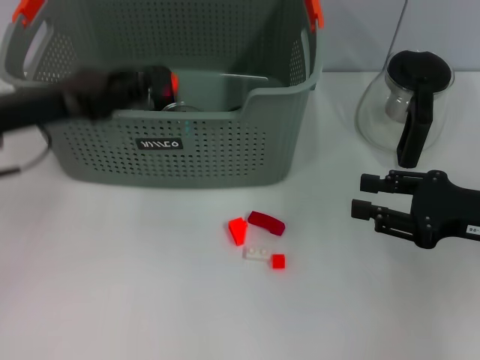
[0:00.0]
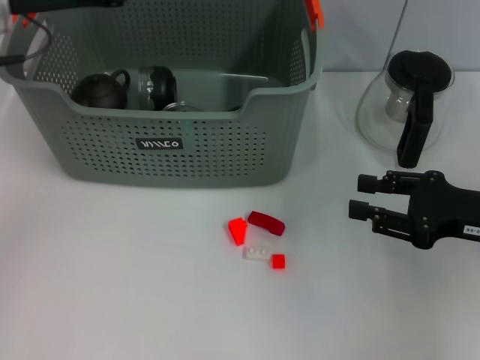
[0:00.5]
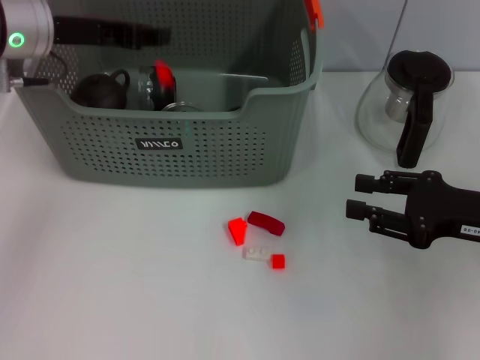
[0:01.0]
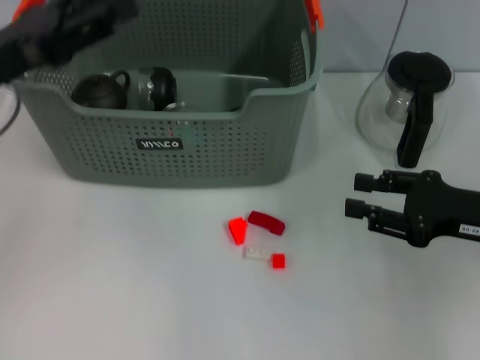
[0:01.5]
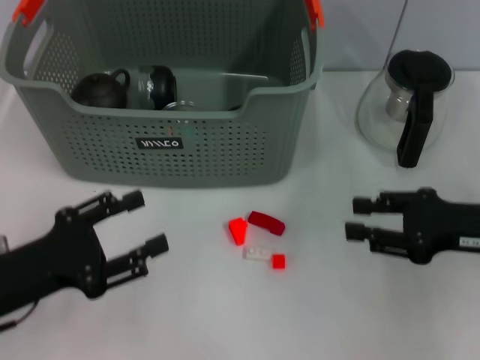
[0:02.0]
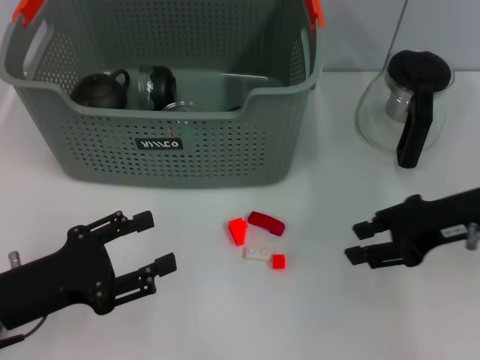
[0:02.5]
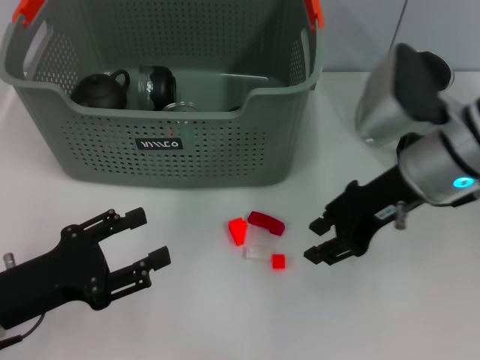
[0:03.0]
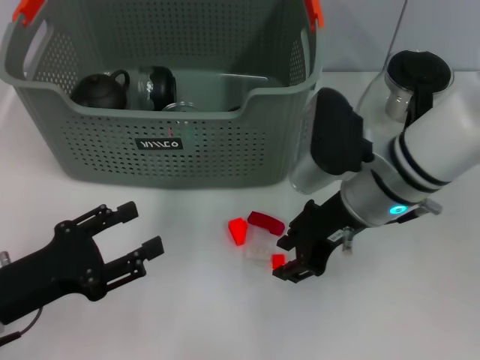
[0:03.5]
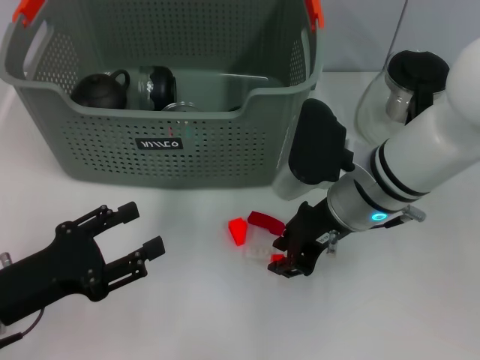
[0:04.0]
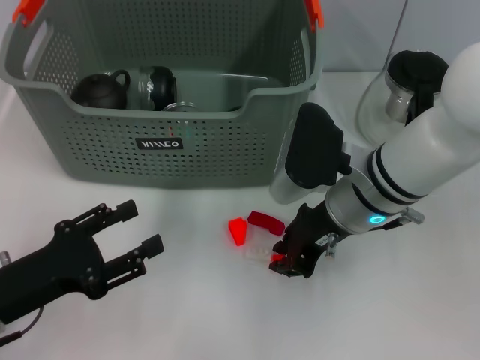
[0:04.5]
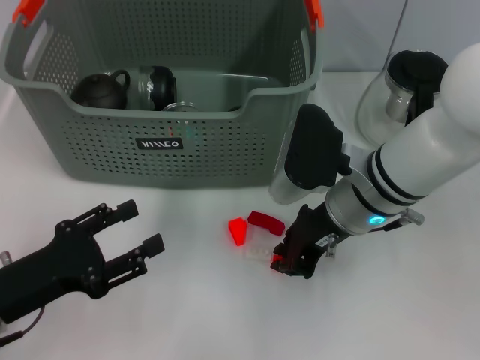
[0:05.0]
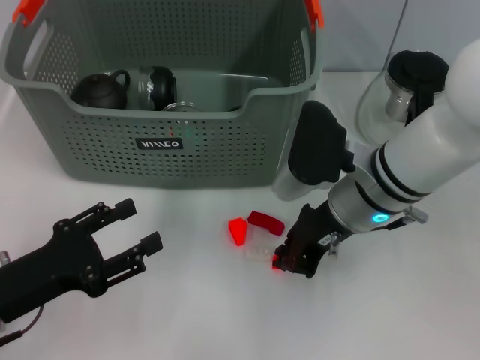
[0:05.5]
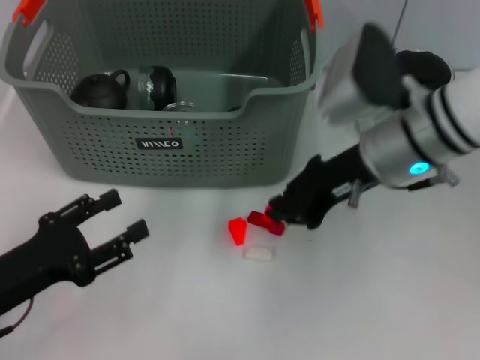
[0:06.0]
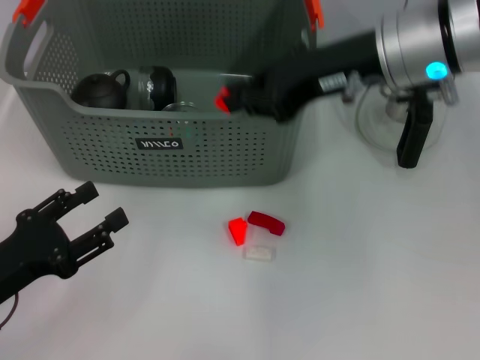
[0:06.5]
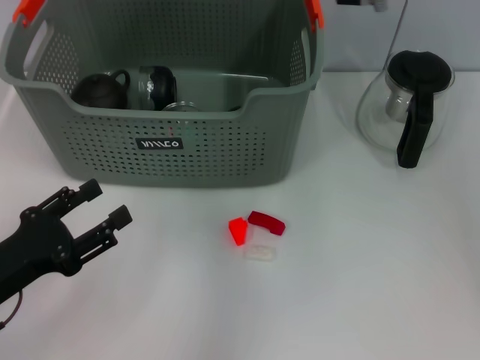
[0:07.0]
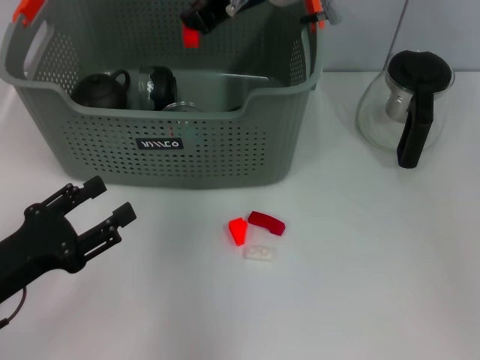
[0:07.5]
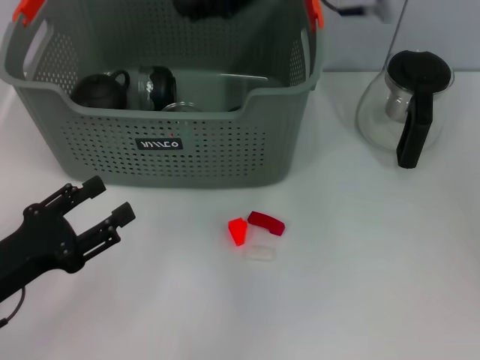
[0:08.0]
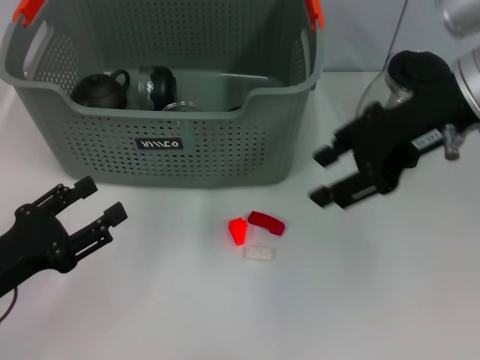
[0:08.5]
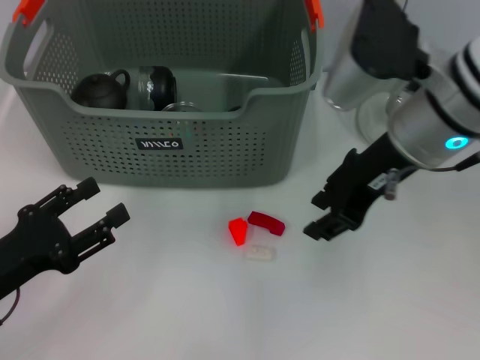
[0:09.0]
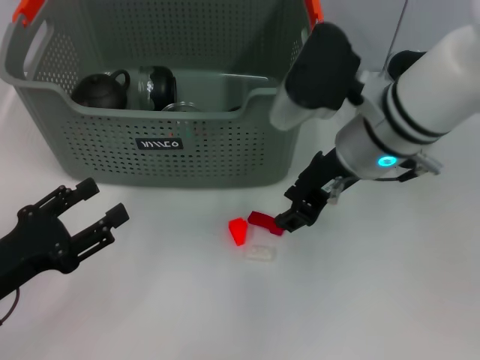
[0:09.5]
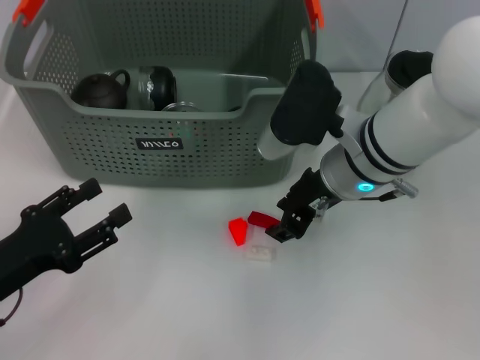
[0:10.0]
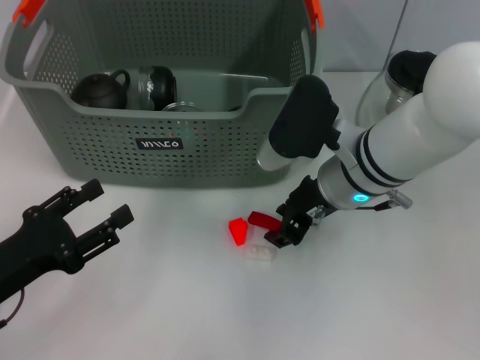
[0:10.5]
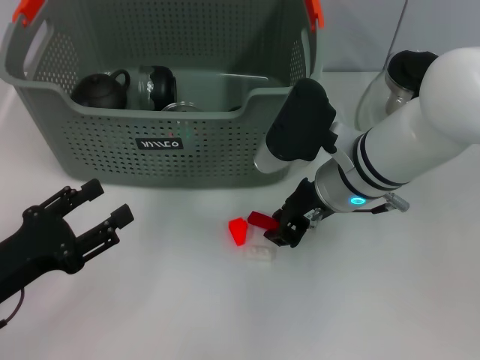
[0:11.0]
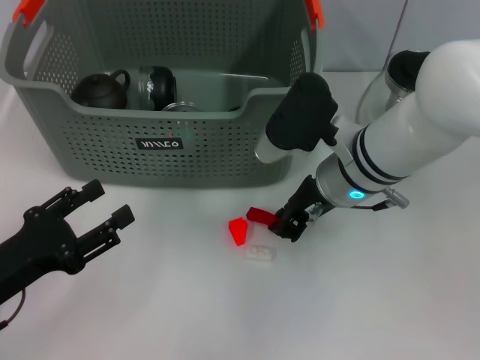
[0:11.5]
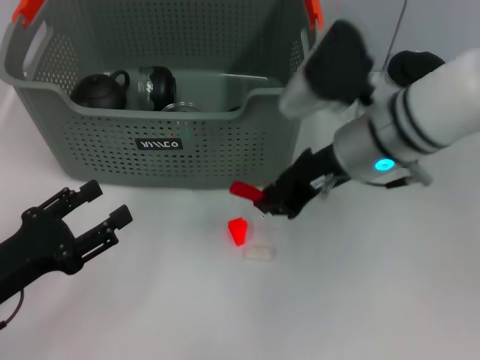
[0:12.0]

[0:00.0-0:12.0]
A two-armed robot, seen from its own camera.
Task of the whole recording: pick up the teacup on the table and place it into the storage bin, pick up the block on the table and place it into the storage bin.
Step, 0:00.0 to 0:01.0: Place the orange block in the storage box with left gripper.
Step, 0:01.5 to 0:05.0: Grasp the orange block with right gripper.
Step, 0:05.5 to 0:07.5: Place the orange block in the storage box with right gripper.
Step, 0:08.0 to 0:11.0: Grasp the red block with right gripper.
0:00.0 to 0:02.0: The left gripper shifts some 15 cm backward and downward, and opens its fingers.
0:02.0 to 0:04.0: The right gripper shifts some 20 cm to the left.
0:04.0 to 0:06.0: The right gripper travels upward by about 5 cm, and closes.
0:06.0 to 0:08.0: The right gripper shifts roughly 15 cm upward and forward, and opens.
0:08.0 to 0:10.0: The right gripper shifts some 15 cm downward.
0:10.0 to 0:12.0: The right gripper closes its fingers.

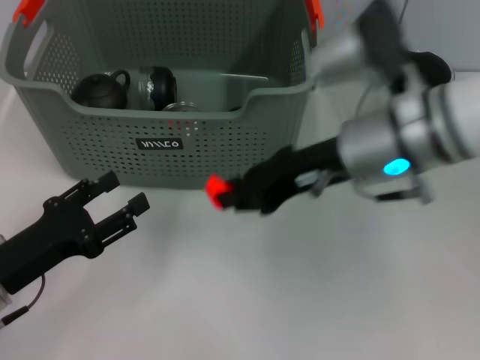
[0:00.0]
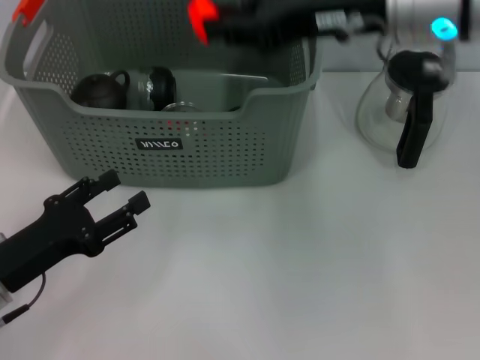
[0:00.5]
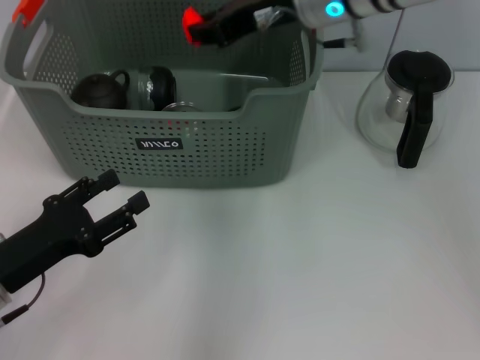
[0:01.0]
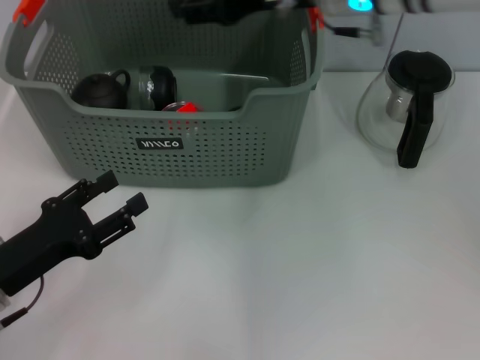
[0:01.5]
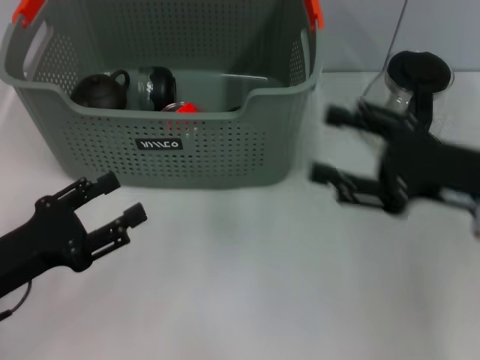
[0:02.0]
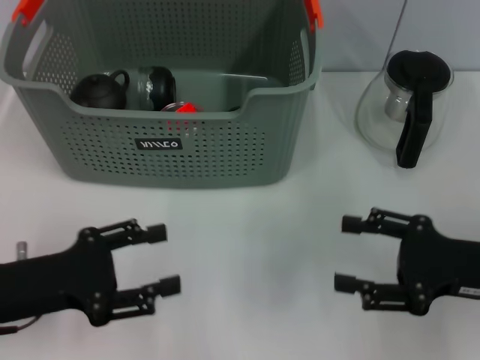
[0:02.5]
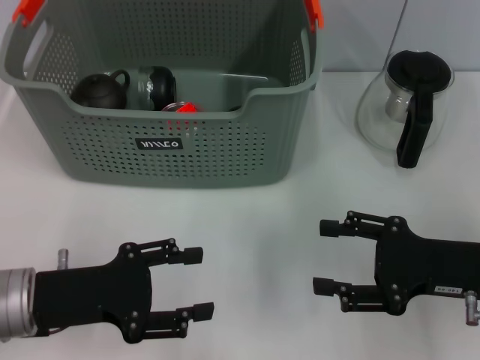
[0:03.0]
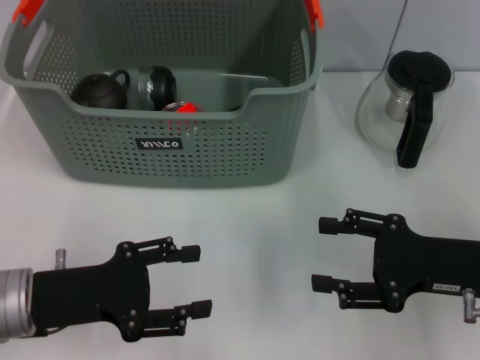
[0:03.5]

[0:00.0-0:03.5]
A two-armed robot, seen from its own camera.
Task of the whole recording: pick up the teacup on the table and place it into the storage bin, pick up the block on the table and place it into the storage bin.
Step, 0:00.0 to 0:01.0: Place the orange block in the storage box with right gripper.
0:00.0 to 0:02.0: The right gripper travels to the right by about 15 cm, and opens its fingers.
0:02.0 to 0:03.5: The right gripper is displaced downward by roughly 5 cm.
